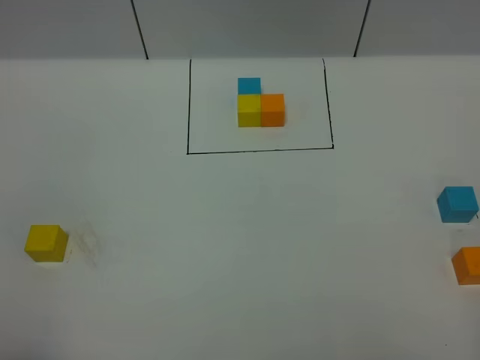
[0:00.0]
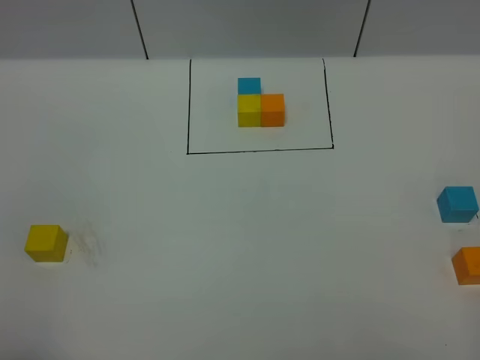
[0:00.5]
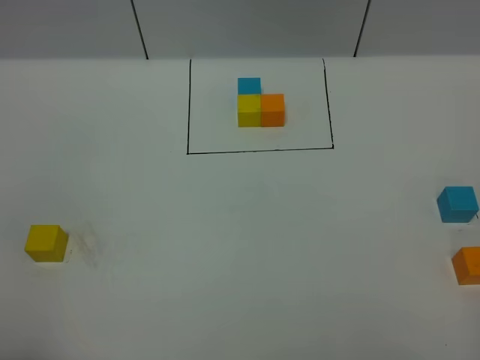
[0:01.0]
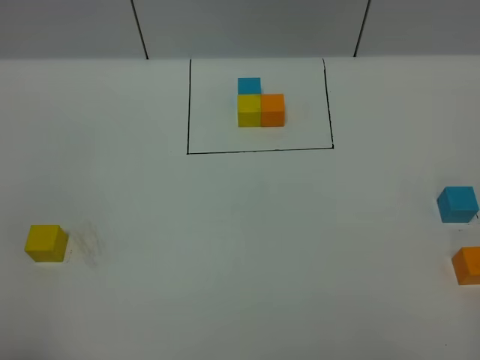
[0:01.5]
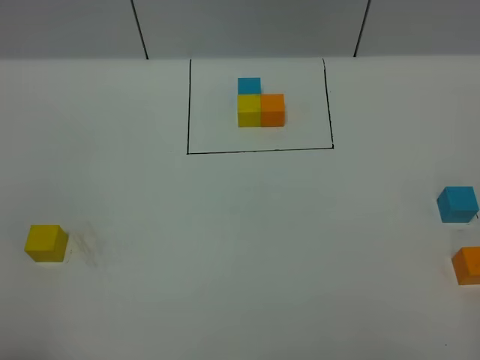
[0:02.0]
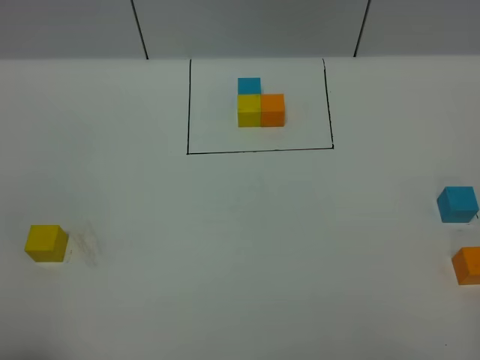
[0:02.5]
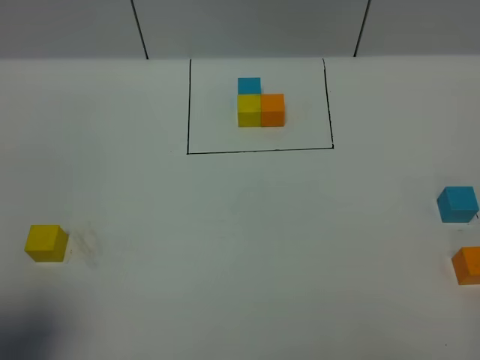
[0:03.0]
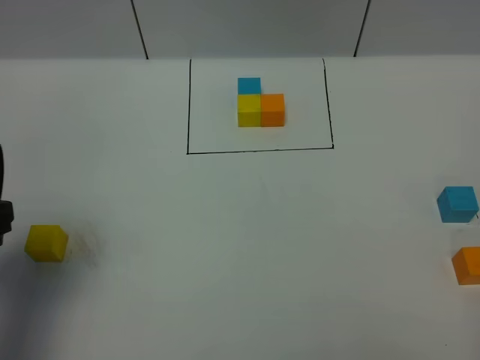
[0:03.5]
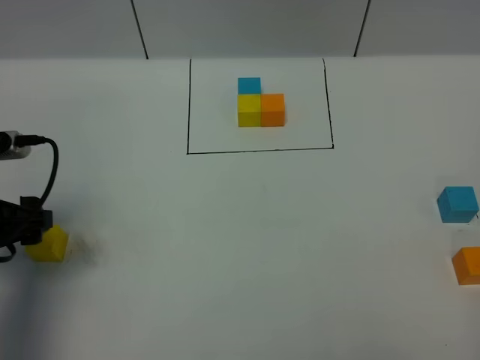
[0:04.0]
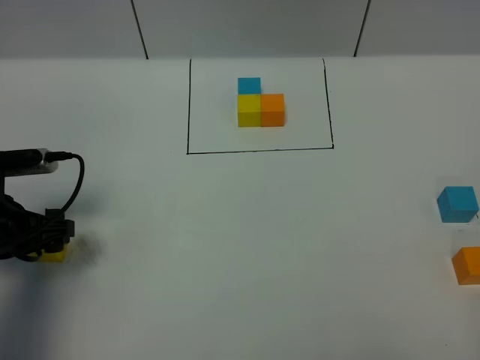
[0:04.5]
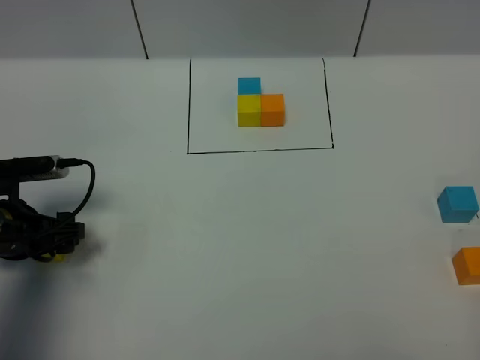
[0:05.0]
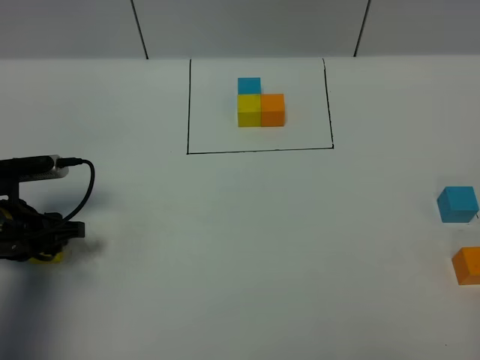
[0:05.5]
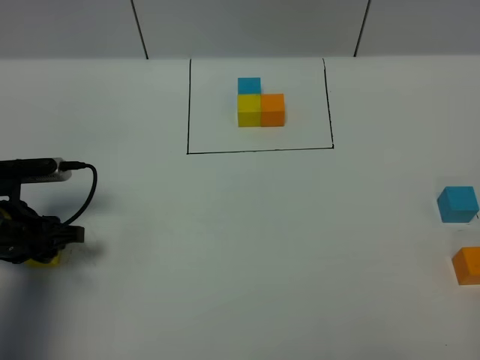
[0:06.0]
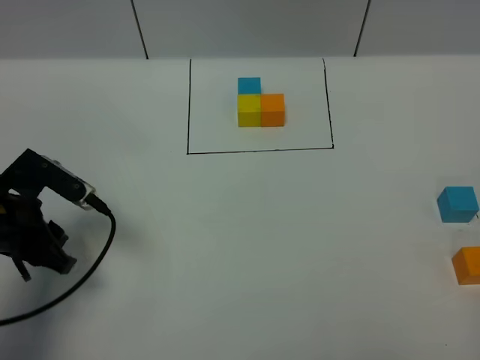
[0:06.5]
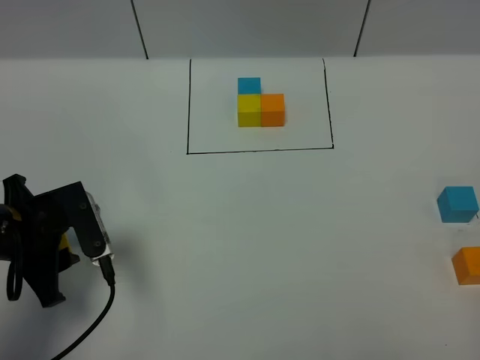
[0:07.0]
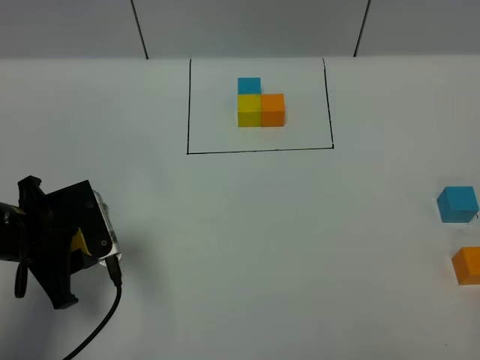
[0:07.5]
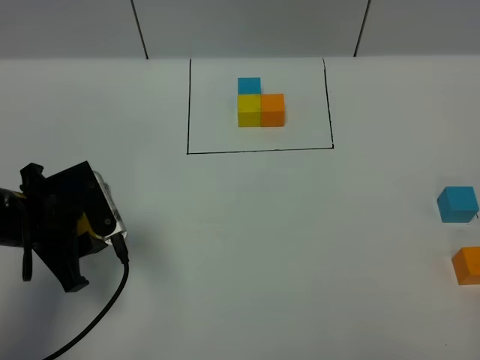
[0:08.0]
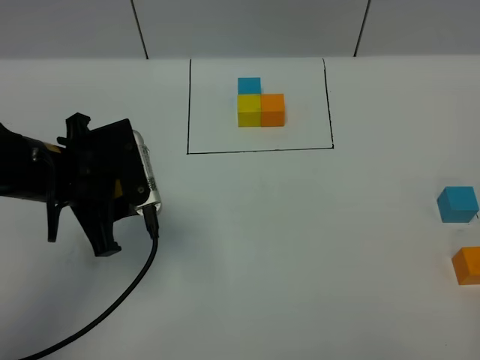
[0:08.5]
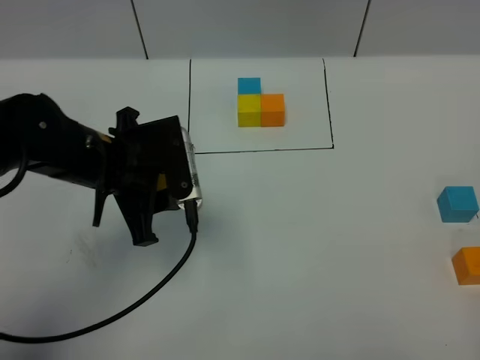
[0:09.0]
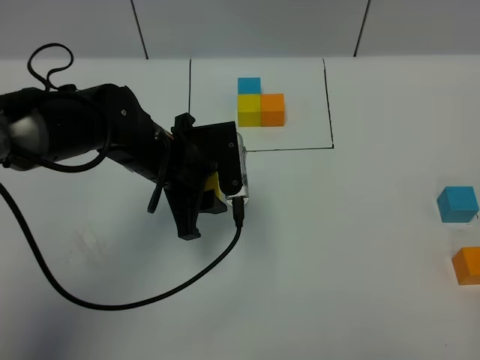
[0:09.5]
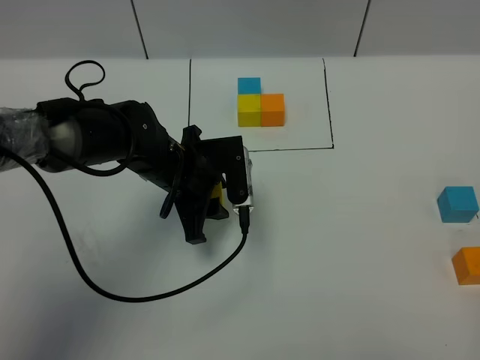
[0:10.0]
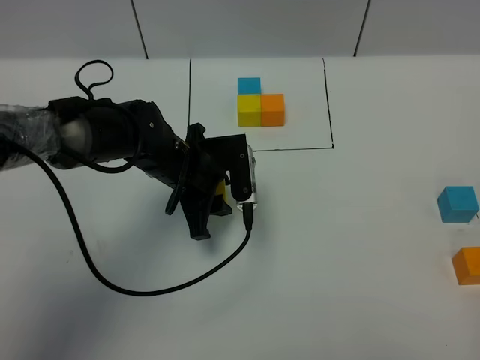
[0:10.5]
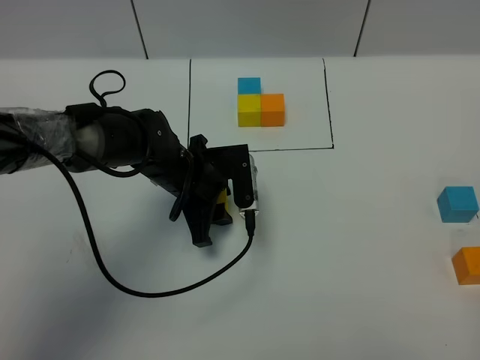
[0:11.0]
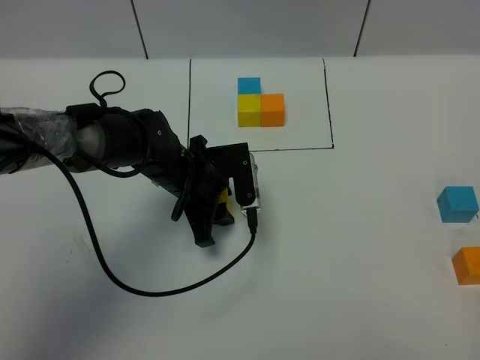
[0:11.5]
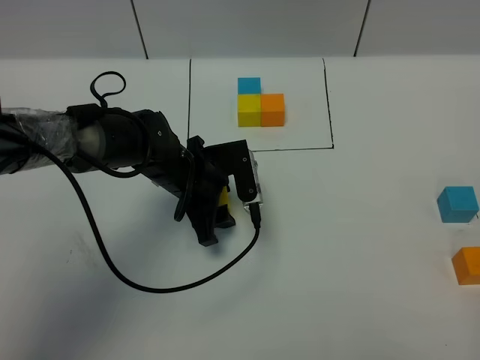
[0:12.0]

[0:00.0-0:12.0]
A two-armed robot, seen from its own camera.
Task of the whole recording: According to the building block template in front, assemble the scattered blocks together.
0:00.0 to 0:02.0: Both grippers stay put.
0:02.0 to 0:04.0: The left gripper shifts about 25 cm forward, and opens its fingers.
0:04.0 to 0:06.0: The left gripper shifts some 5 cm downward, and closes.
0:06.0 to 0:08.0: The left gripper heads upward and to the right, covering approximately 5 cm.
0:08.0 to 0:10.0: The left gripper moves to the right and forward, about 15 cm.
0:10.0 to 0:12.0: There are only small adjustments of the grippers.

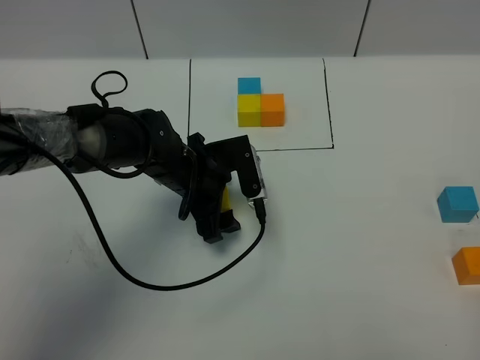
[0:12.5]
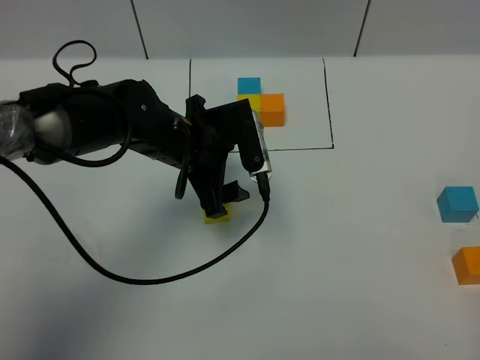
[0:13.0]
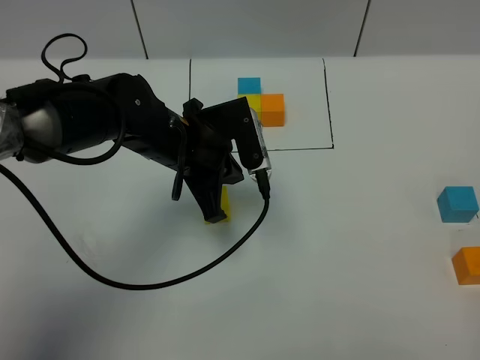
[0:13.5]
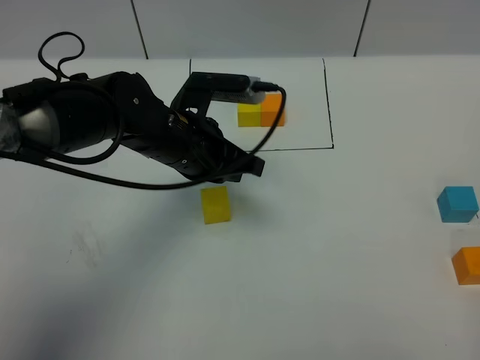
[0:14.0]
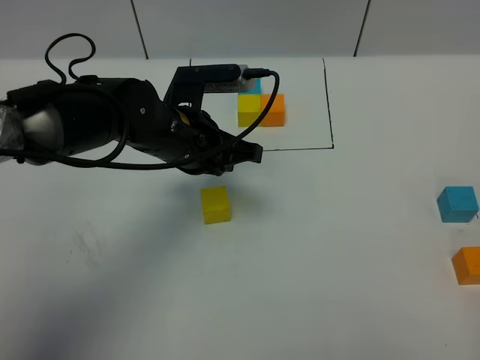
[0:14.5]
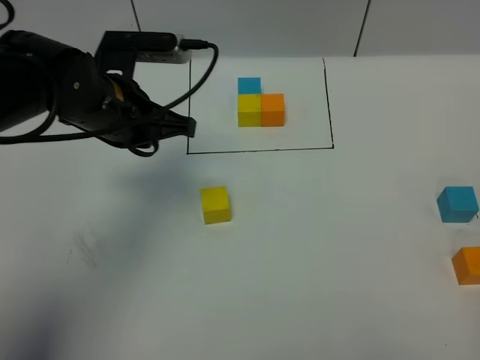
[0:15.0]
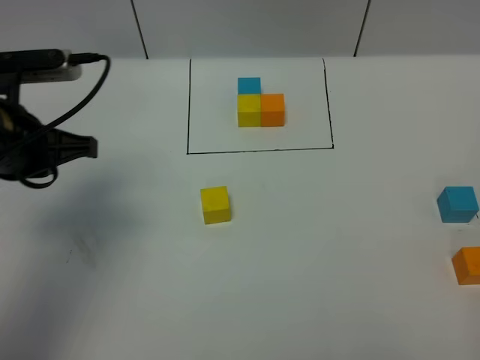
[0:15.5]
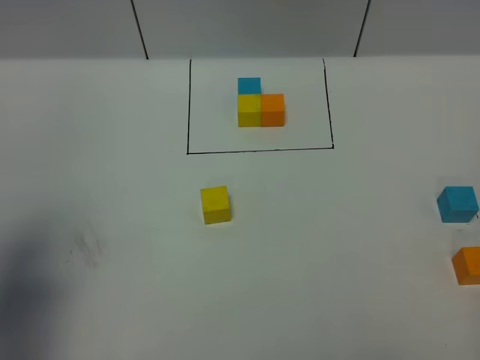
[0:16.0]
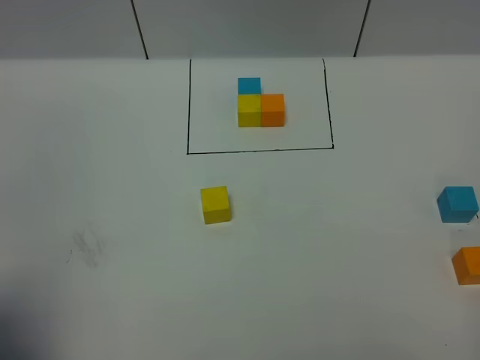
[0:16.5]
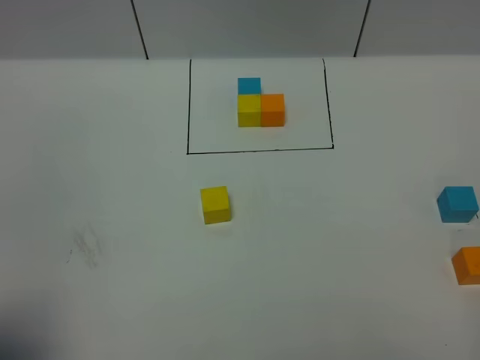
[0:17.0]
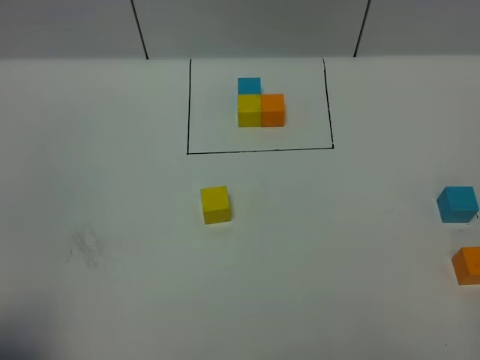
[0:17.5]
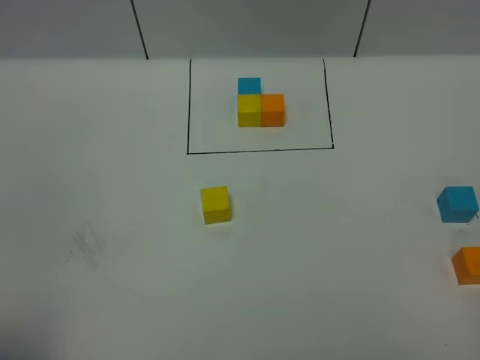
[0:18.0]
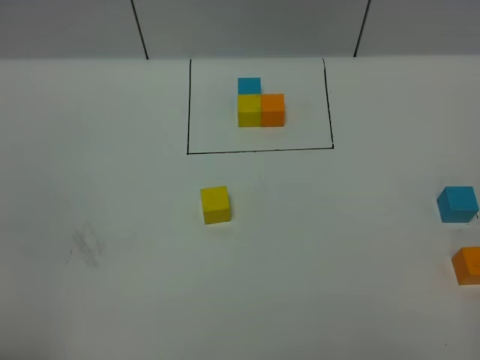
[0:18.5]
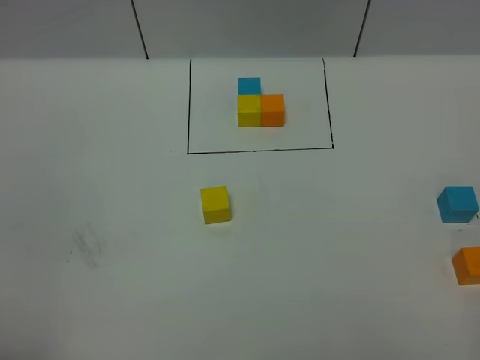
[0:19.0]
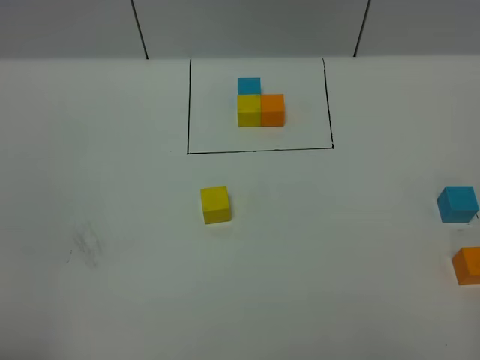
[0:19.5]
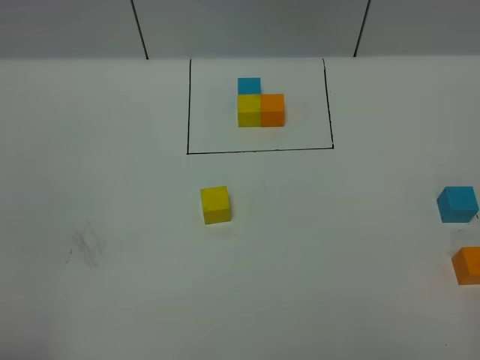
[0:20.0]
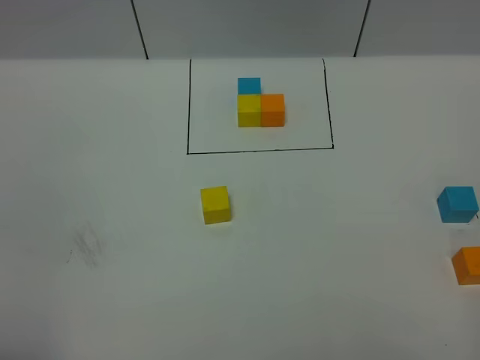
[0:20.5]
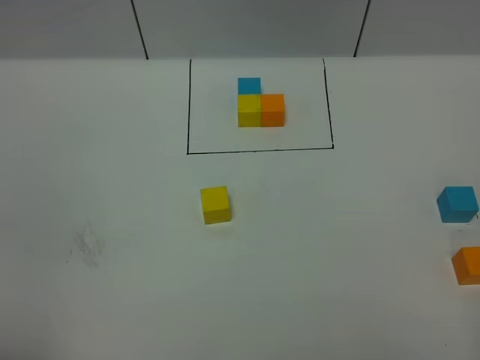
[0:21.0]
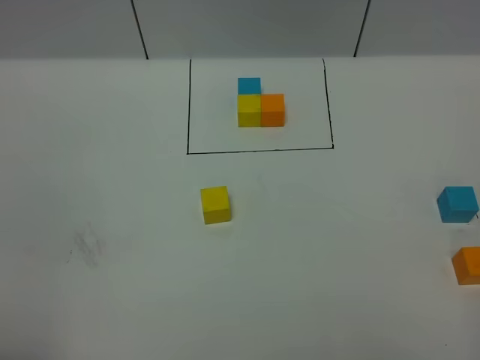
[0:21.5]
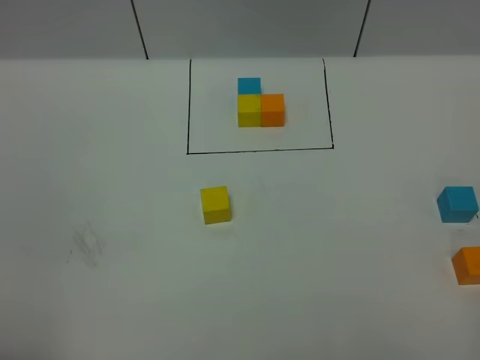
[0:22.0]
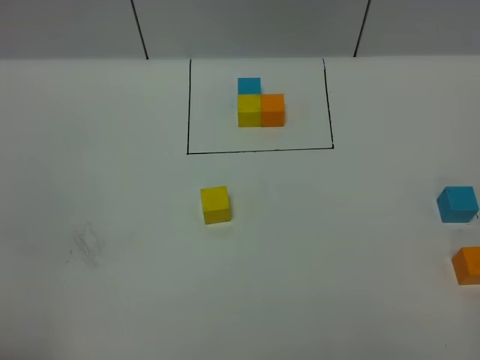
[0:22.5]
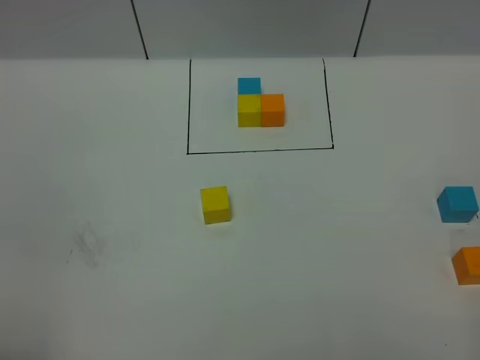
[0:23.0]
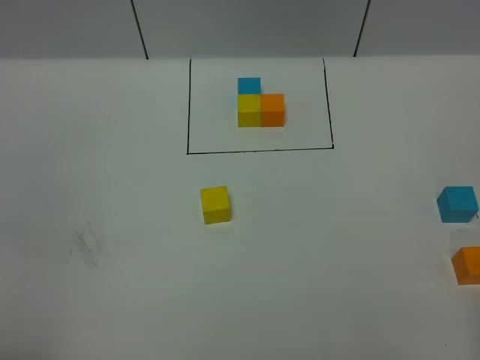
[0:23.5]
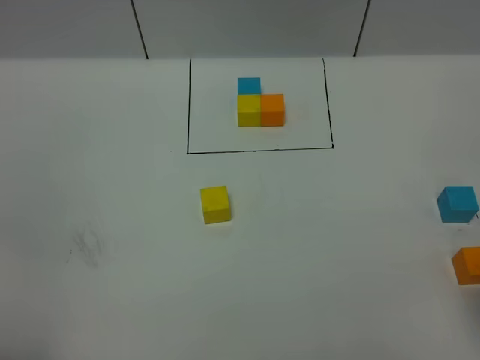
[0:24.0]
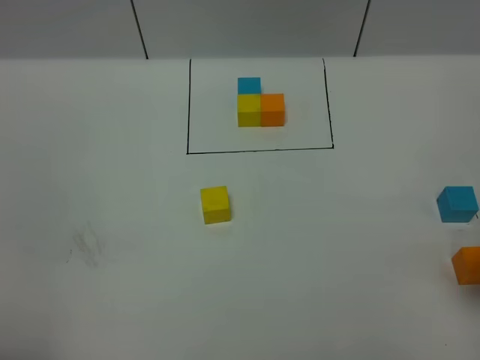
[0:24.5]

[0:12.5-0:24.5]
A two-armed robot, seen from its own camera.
Task of the whole recording: According to the building block template in front, assemble the scattered blocks together.
0:12.5 to 0:14.5: The left gripper is displaced upward by approximately 10 cm, and closes.
0:14.5 to 0:16.5: The left gripper is displaced backward and to the left by some 35 cm.
0:16.5 to 0:18.5: The left gripper shifts some 10 cm backward.
0:18.5 to 0:22.5: Both grippers stay put.

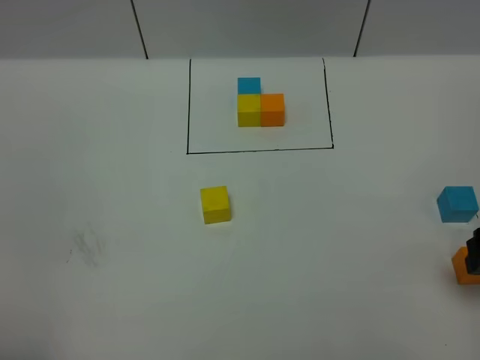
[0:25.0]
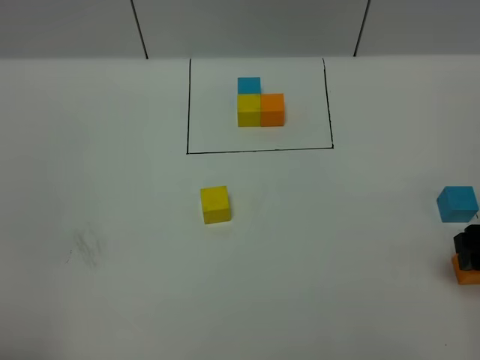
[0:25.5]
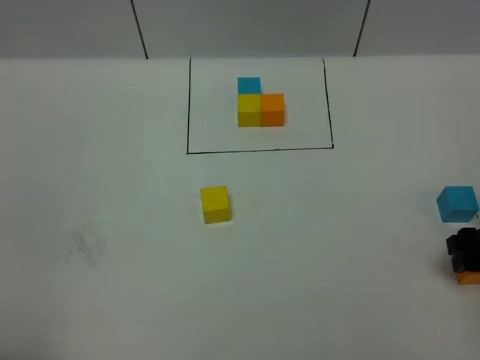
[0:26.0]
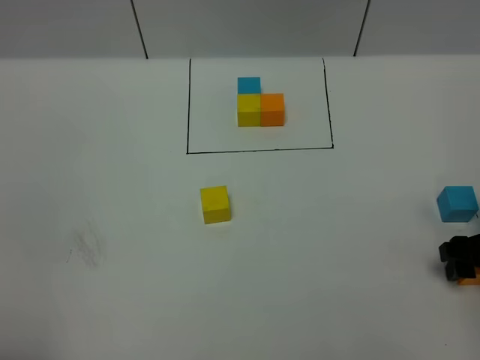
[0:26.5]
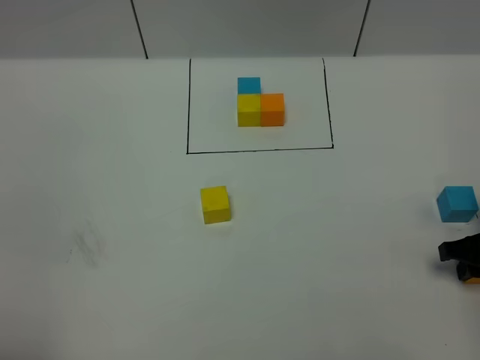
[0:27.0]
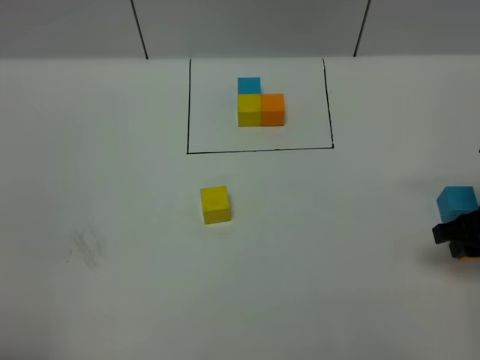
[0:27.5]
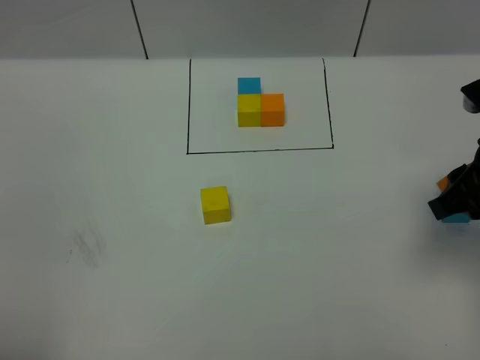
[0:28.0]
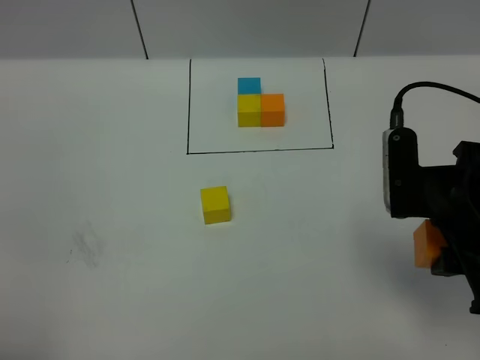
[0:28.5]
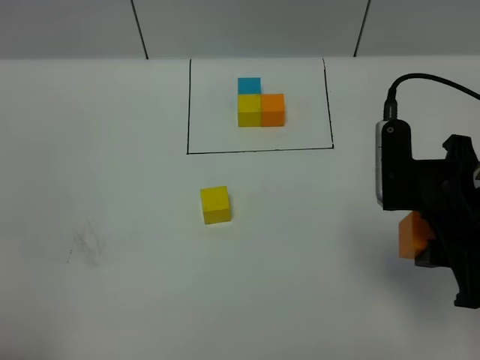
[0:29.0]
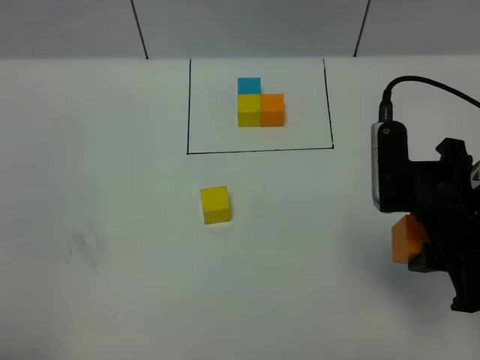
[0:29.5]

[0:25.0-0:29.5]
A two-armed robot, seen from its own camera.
Task of the whole recording: According to the building block template in front, assemble the scattered blocks together.
0:25.0 to 0:27.0: The right gripper is displaced downward by roughly 10 cm, and closes its fingers.
0:27.0 to 0:29.5: The right gripper is displaced upward and to the left by about 20 cm.
